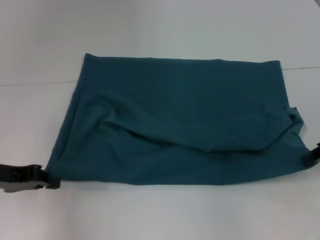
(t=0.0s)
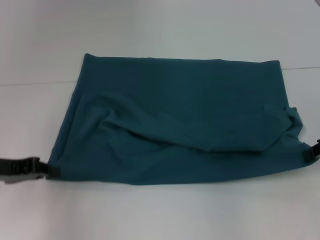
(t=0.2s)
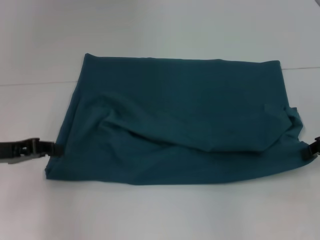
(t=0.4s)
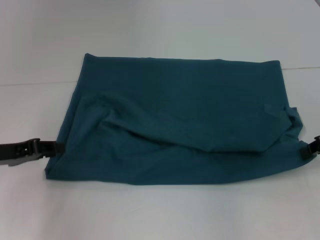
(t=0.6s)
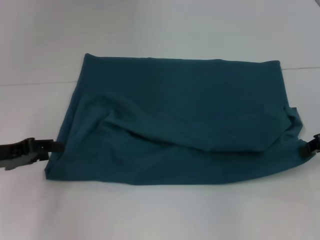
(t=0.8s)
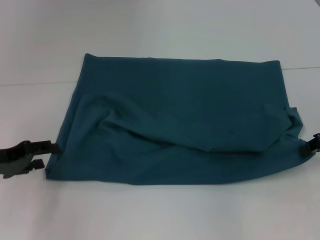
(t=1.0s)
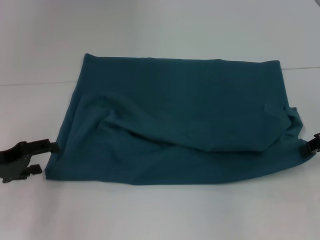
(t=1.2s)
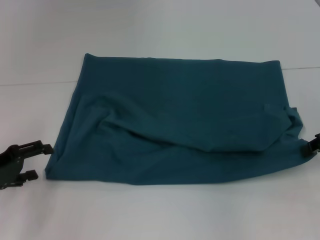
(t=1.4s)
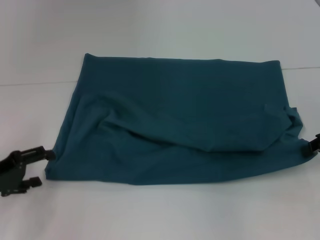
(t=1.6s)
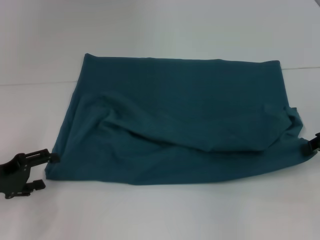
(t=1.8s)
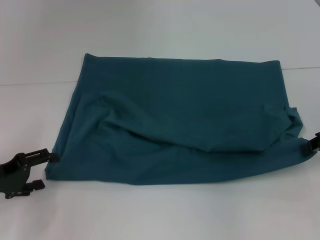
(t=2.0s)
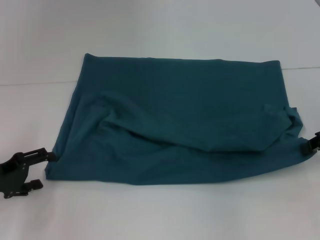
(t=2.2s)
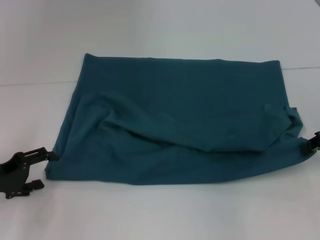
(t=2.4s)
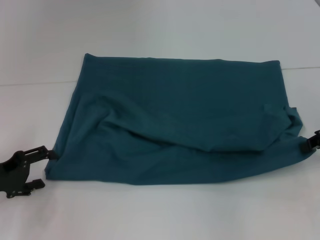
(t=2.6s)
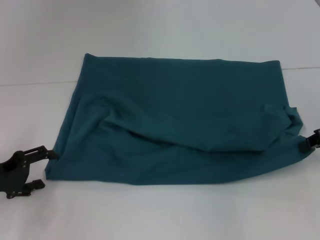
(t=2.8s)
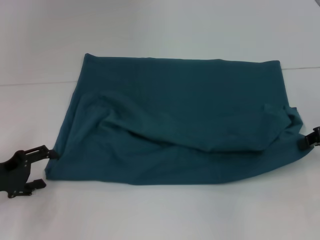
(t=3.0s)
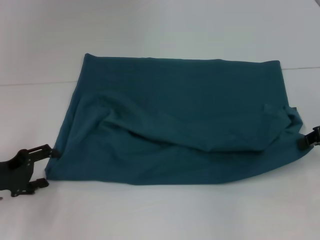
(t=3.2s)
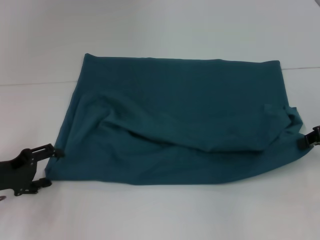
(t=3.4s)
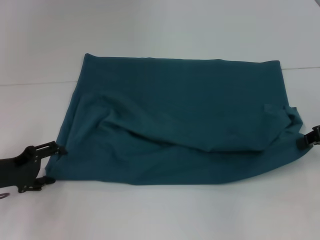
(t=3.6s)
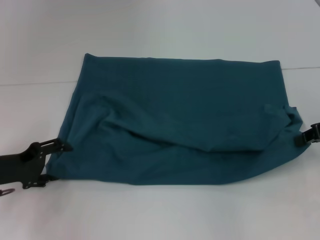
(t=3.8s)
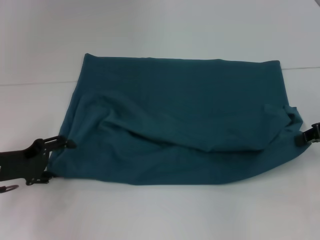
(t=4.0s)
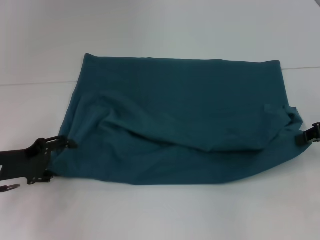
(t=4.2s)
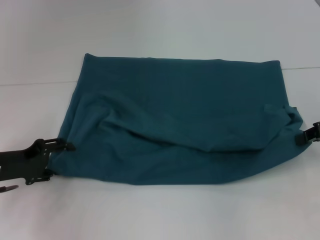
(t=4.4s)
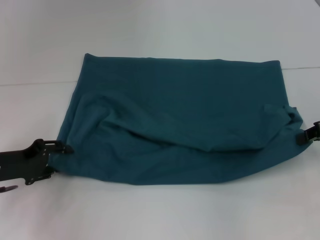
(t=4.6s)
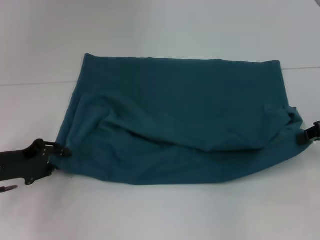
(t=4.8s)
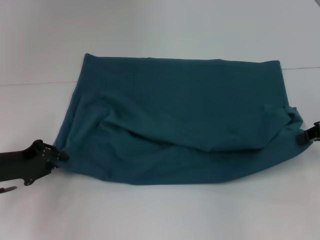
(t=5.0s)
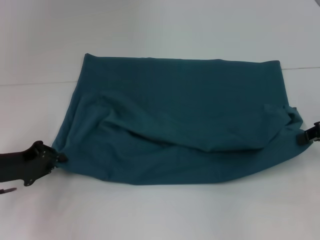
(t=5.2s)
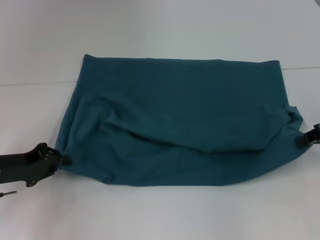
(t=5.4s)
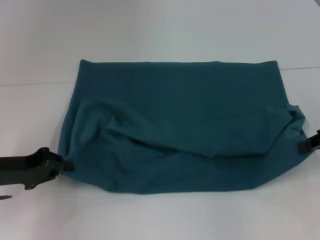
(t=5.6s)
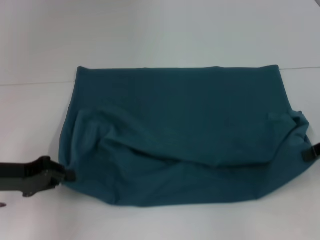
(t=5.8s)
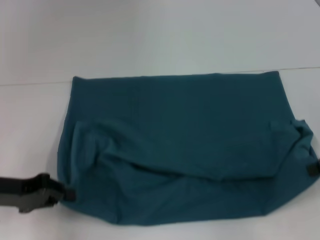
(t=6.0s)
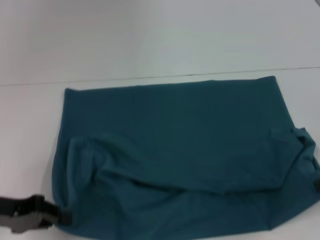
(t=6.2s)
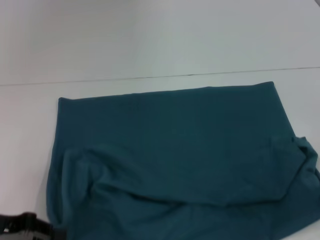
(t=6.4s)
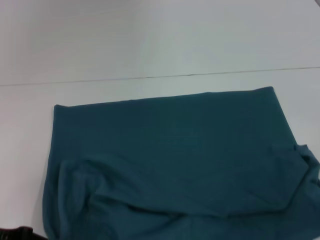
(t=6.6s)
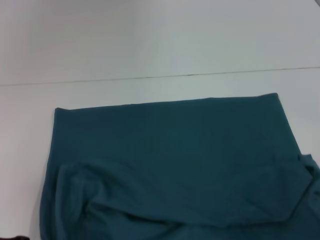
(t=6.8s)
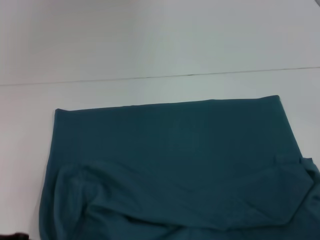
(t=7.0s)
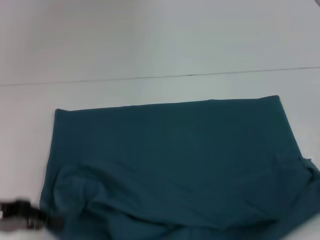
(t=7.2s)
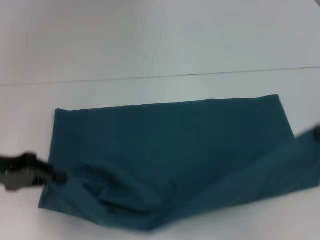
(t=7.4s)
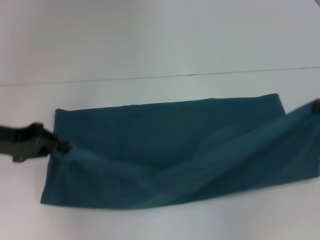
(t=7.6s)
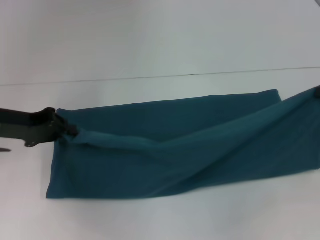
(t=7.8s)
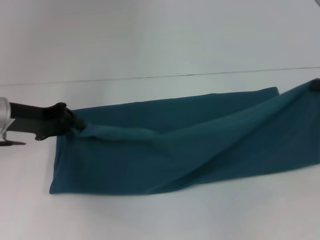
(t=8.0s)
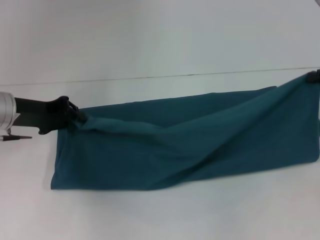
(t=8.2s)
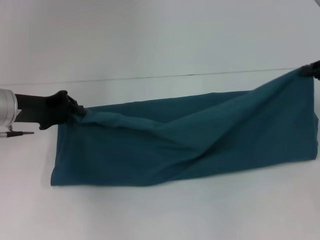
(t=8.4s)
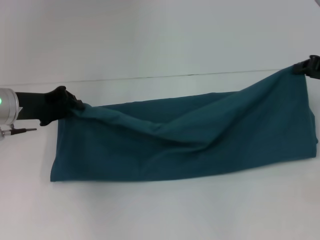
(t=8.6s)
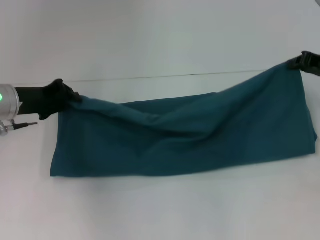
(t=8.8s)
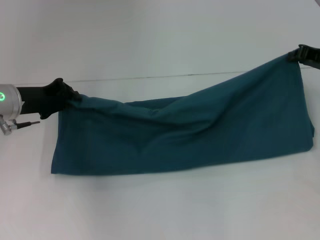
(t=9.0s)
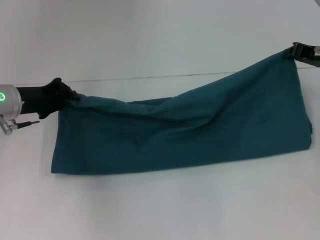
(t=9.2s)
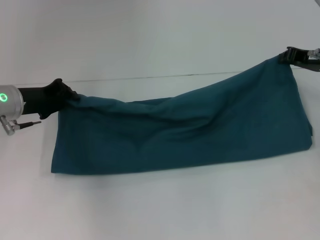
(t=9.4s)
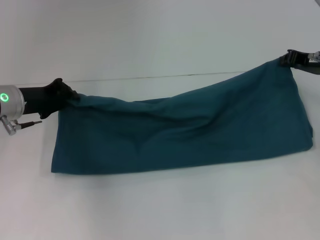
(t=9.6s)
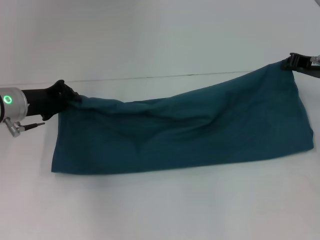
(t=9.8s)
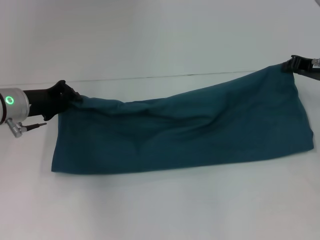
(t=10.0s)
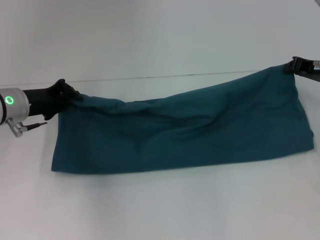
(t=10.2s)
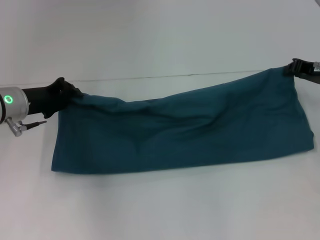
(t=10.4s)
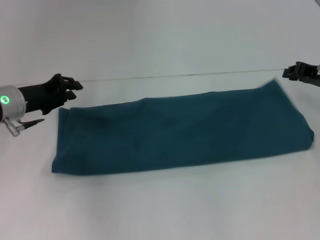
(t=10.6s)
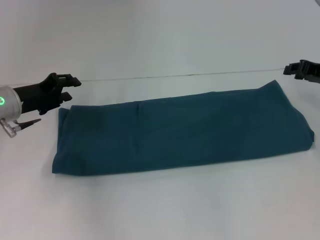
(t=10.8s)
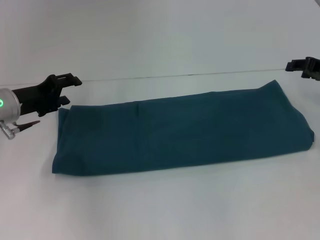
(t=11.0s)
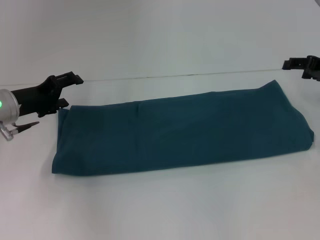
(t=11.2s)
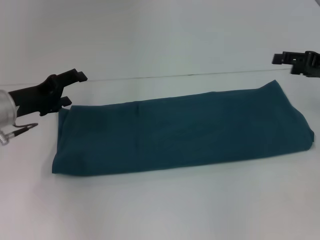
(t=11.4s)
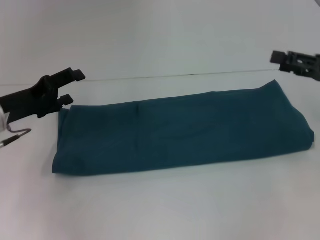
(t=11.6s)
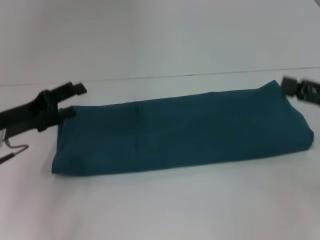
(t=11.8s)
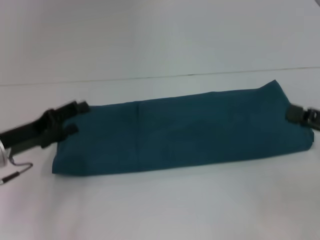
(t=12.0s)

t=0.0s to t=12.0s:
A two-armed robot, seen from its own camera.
Step, t=0.0s to t=6.0s: Pull the clothes with your left hand.
Step, t=0.0s to t=6.0s: Pull the clothes with your right hand.
Step, t=6.2s to t=11.0s: Fold the clothes to the right.
t=0.0s to t=1.6s: The left gripper changes place by some 5 cm, and opens up.
t=1.6s to t=4.4s: The grippers move only a little.
t=4.4s to t=6.0s: The left gripper closes.
t=6.0s to t=7.6s: The right gripper travels backward and back again, approximately 5 cm each way; the left gripper moves forward and upward, some 5 cm.
t=7.6s to t=9.0s: The left gripper shifts approximately 5 cm forward; the right gripper travels forward and to the left by roughly 10 cm.
t=9.0s to t=10.4s: The grippers move only a little.
t=10.4s to t=12.0s: The right gripper goes about 15 cm backward, and opens; the left gripper shifts roughly 10 cm backward, and opens up.

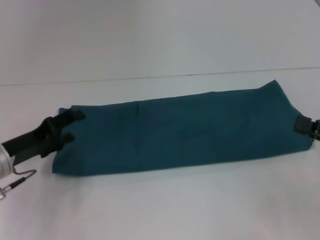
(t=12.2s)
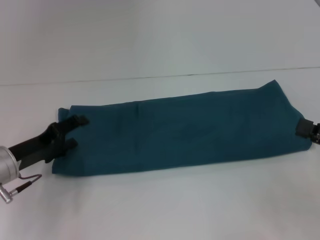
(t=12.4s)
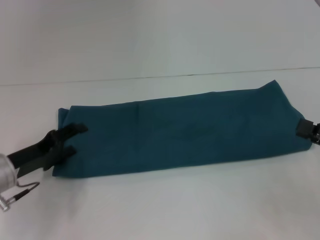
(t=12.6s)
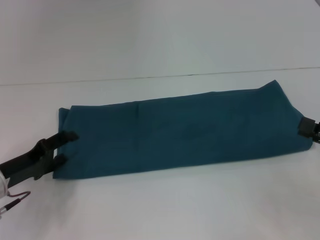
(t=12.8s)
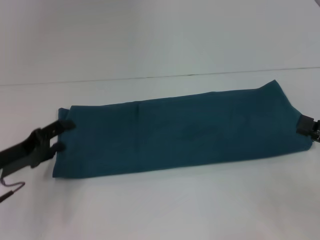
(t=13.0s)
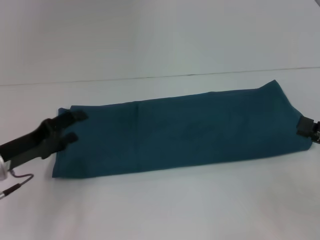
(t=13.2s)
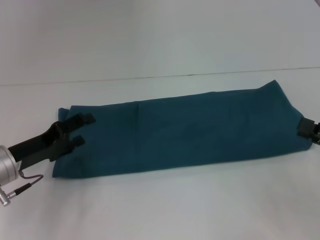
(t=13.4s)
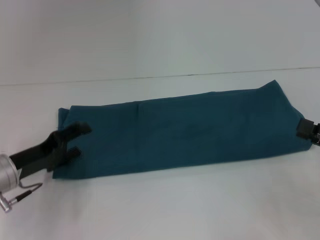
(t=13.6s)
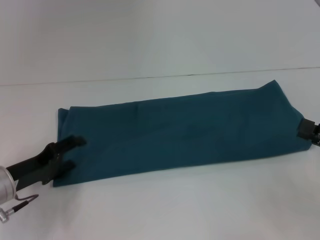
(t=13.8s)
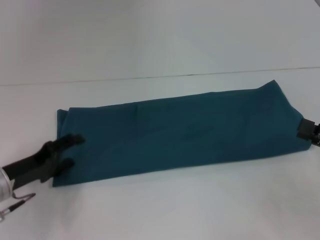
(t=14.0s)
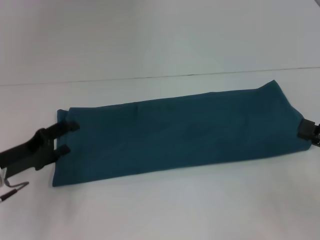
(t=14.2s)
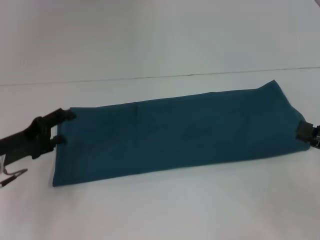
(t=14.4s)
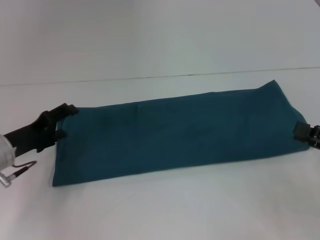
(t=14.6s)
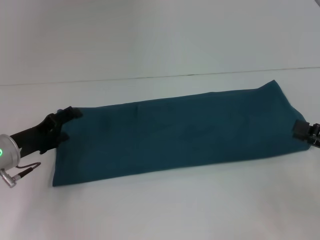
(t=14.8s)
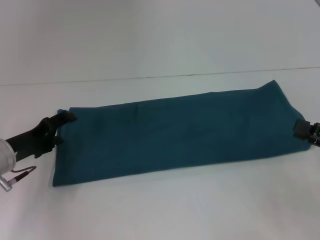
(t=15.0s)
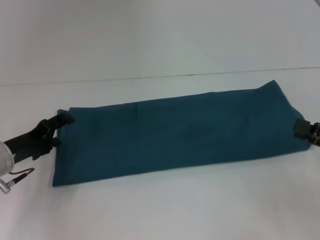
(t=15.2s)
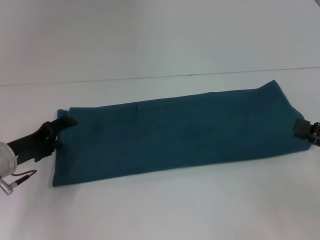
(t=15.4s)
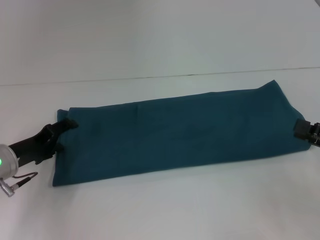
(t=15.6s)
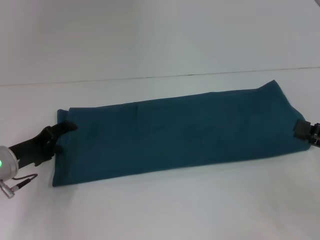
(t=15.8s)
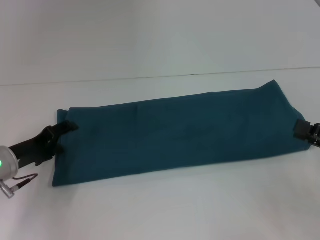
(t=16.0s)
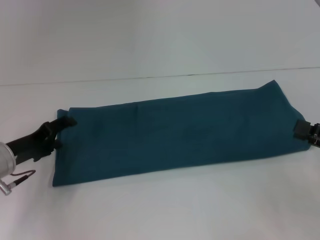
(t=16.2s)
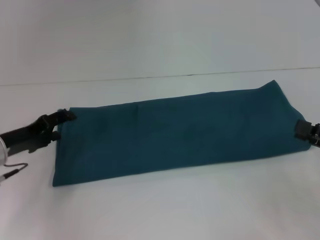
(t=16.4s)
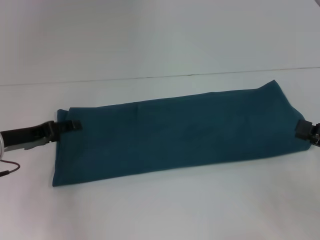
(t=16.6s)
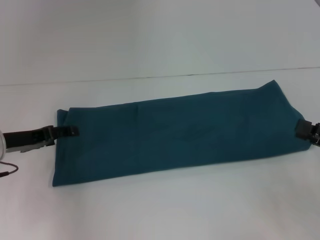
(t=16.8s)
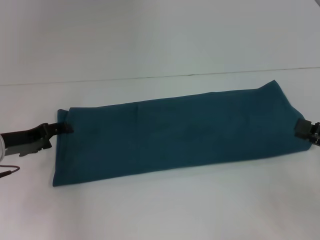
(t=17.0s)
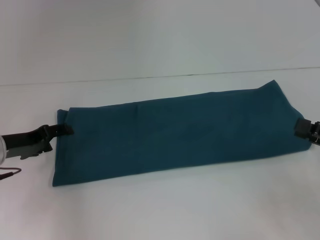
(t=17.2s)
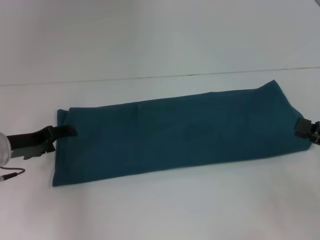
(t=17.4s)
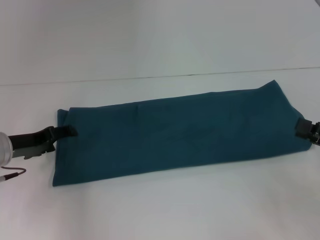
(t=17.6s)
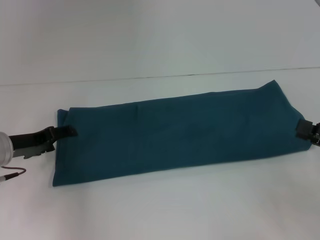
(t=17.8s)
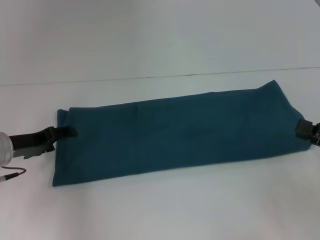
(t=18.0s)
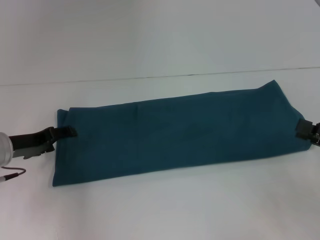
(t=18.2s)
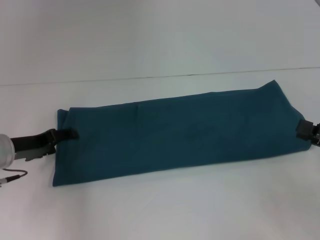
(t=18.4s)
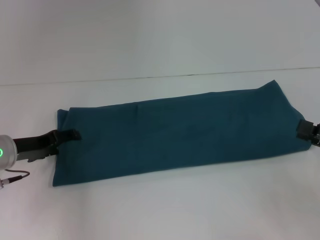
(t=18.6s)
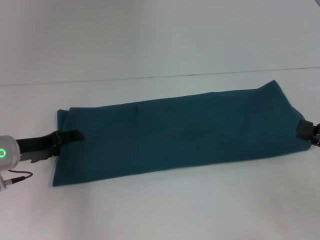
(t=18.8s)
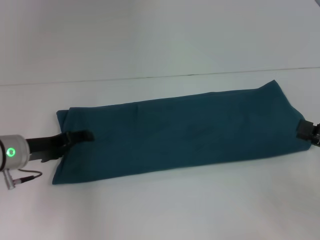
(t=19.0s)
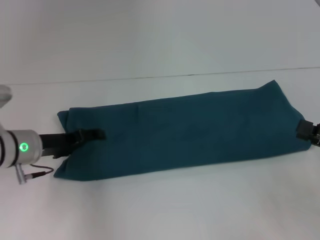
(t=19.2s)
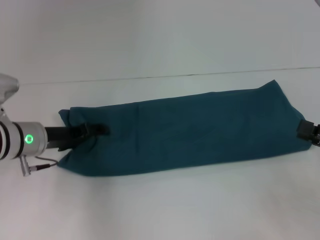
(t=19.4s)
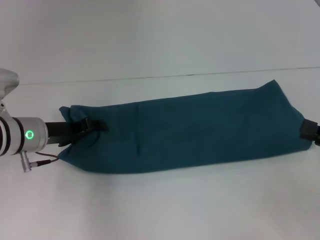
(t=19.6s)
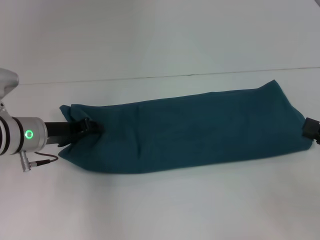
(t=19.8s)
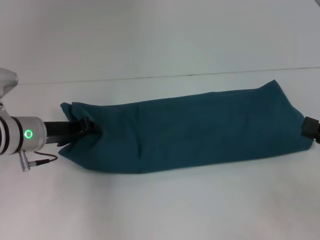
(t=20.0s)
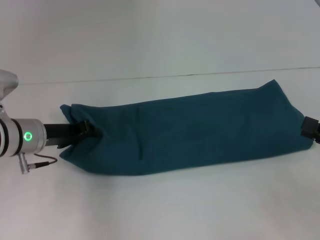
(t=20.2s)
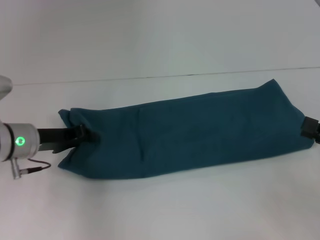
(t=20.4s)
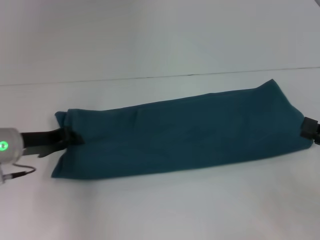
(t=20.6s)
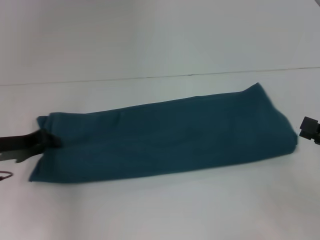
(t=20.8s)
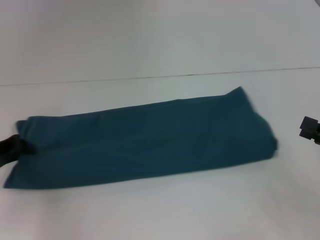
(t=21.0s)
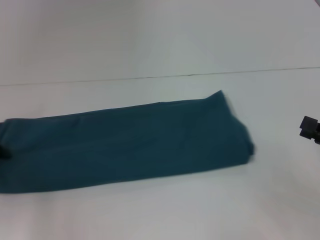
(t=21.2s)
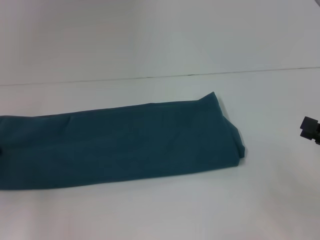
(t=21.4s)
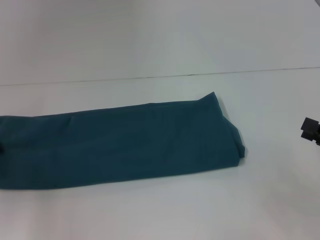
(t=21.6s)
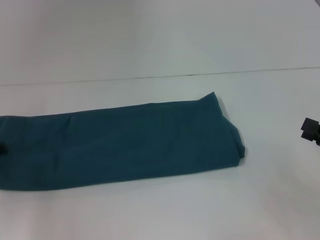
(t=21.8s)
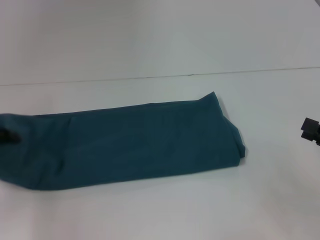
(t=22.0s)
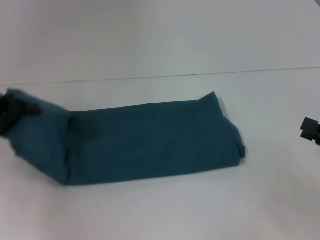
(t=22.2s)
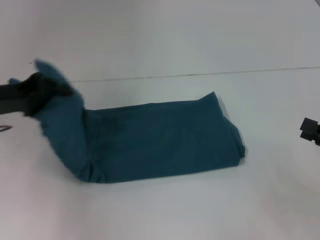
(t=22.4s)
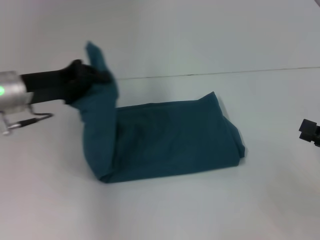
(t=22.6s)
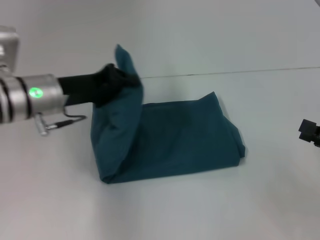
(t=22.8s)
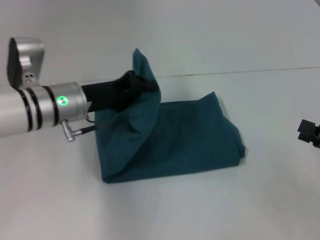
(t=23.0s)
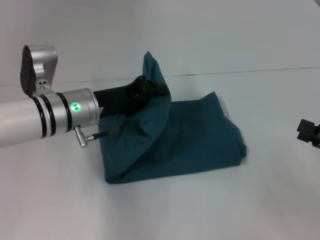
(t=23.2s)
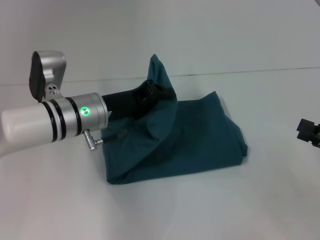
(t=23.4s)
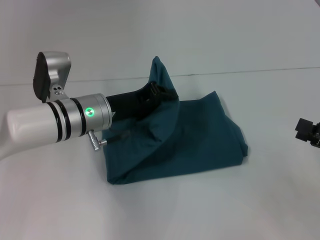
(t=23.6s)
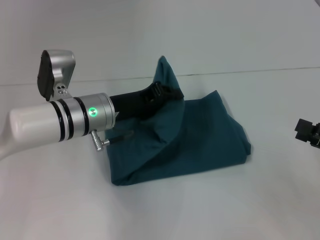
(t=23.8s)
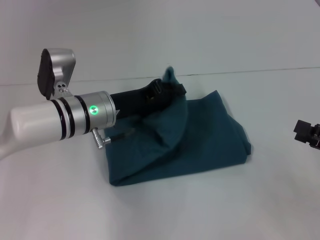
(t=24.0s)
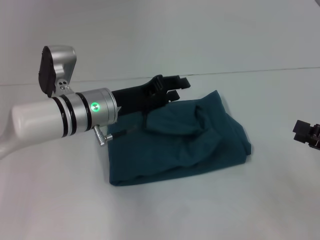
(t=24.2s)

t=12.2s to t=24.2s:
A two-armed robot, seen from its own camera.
t=12.2s to t=15.2s: The grippers make only small movements.
t=16.6s to t=18.2s: There are only small adjustments of the grippers.
t=18.2s to t=19.8s: The left gripper heads to the right, covering roughly 5 cm.
t=19.8s to t=21.2s: The left gripper moves to the left, roughly 15 cm, and closes up.
t=21.2s to t=22.6s: The left gripper travels to the right and upward by some 15 cm.
t=22.6s to t=24.2s: The left gripper is displaced to the right and downward by roughly 10 cm.
